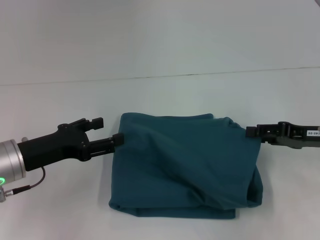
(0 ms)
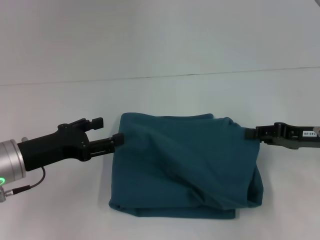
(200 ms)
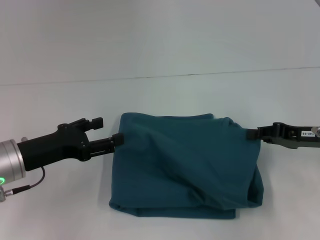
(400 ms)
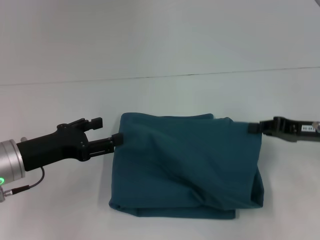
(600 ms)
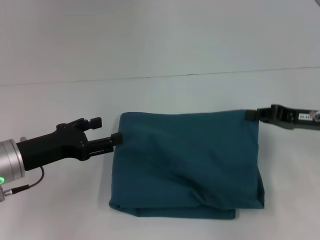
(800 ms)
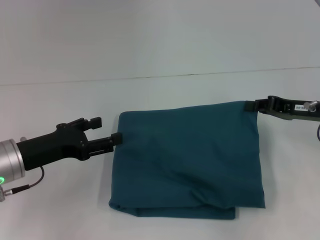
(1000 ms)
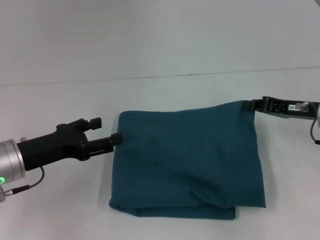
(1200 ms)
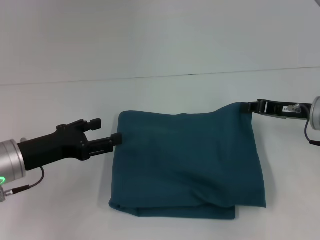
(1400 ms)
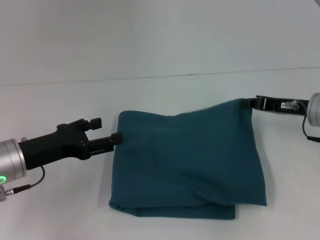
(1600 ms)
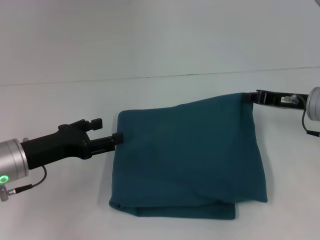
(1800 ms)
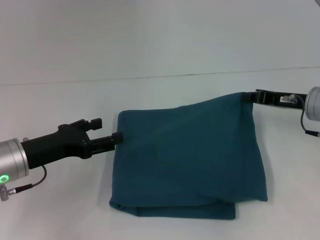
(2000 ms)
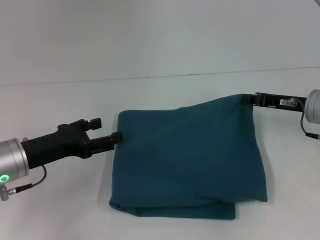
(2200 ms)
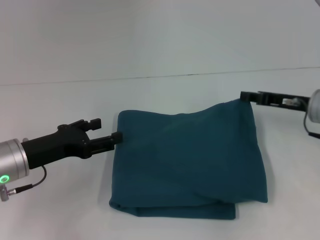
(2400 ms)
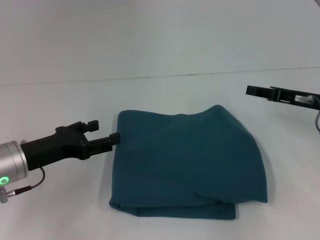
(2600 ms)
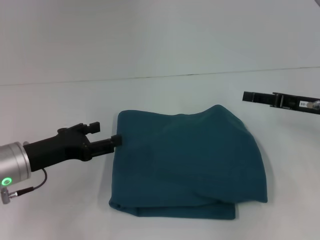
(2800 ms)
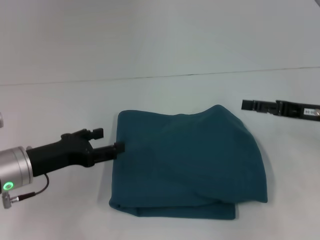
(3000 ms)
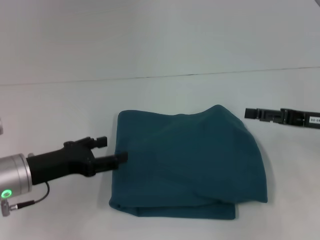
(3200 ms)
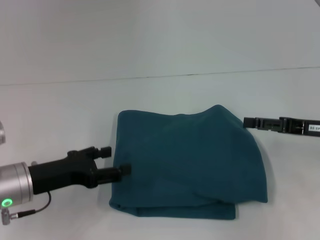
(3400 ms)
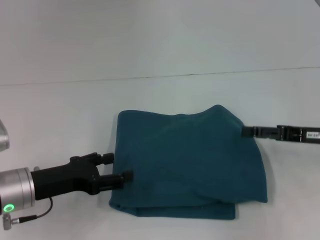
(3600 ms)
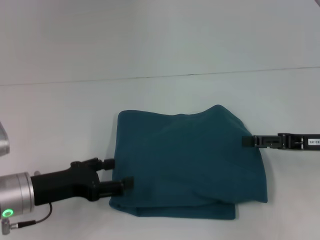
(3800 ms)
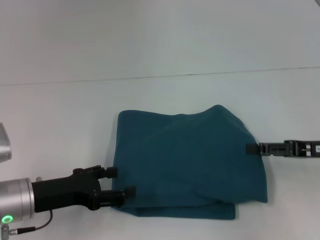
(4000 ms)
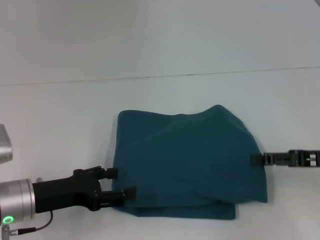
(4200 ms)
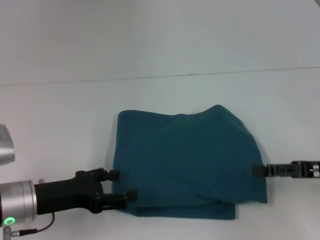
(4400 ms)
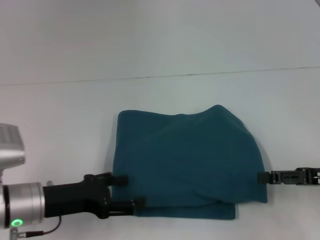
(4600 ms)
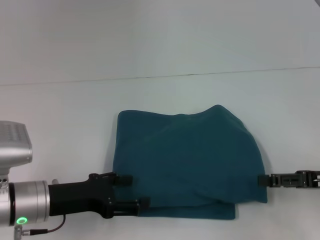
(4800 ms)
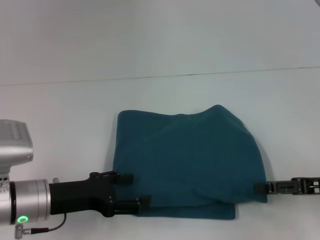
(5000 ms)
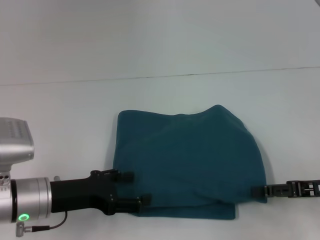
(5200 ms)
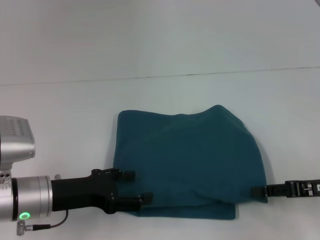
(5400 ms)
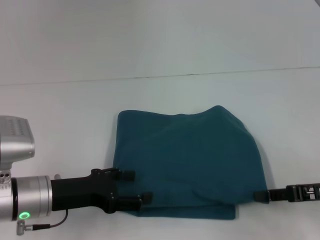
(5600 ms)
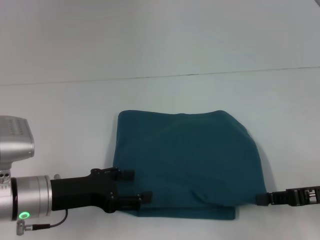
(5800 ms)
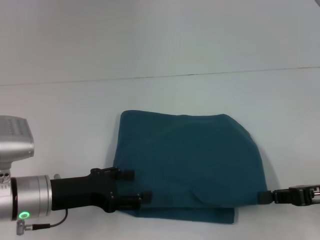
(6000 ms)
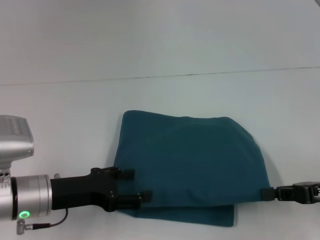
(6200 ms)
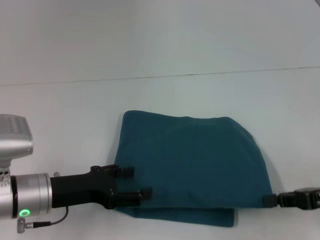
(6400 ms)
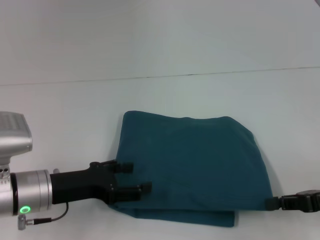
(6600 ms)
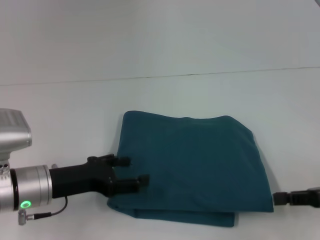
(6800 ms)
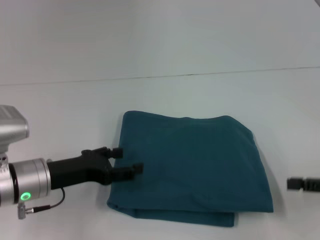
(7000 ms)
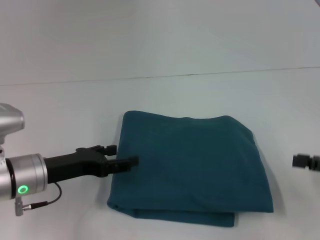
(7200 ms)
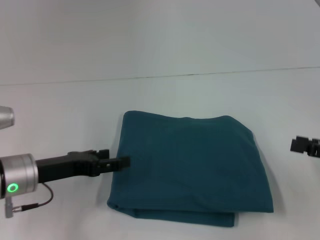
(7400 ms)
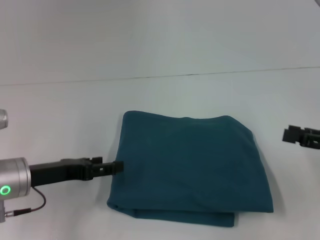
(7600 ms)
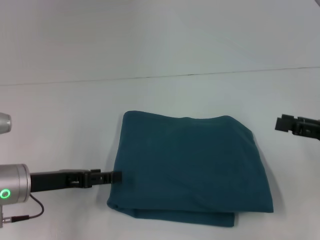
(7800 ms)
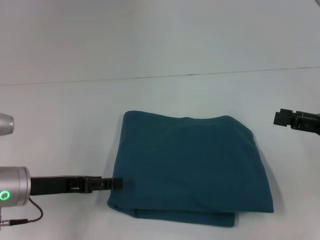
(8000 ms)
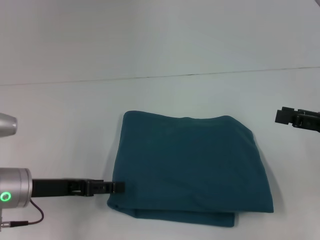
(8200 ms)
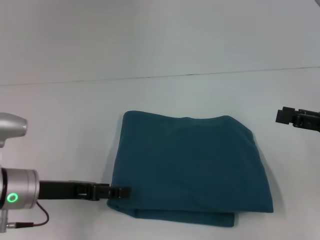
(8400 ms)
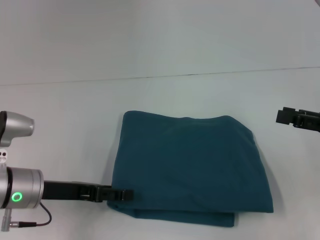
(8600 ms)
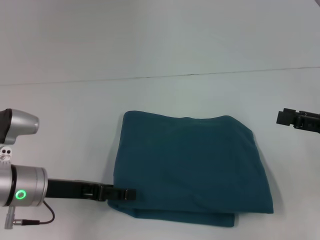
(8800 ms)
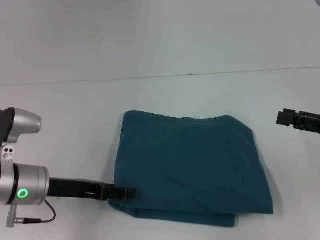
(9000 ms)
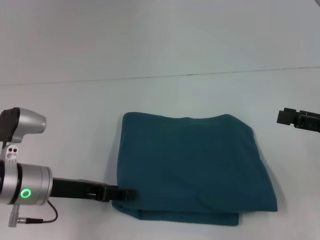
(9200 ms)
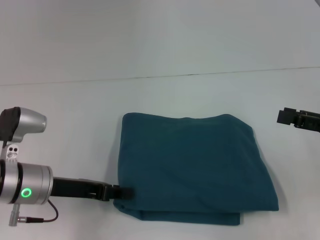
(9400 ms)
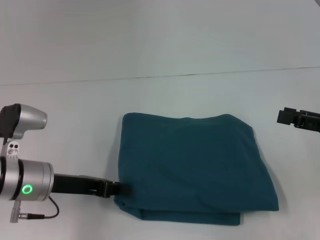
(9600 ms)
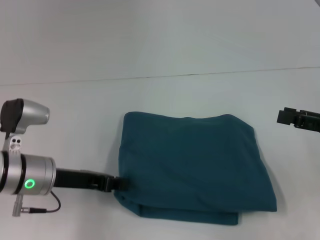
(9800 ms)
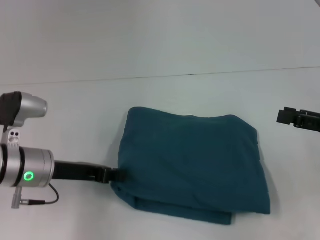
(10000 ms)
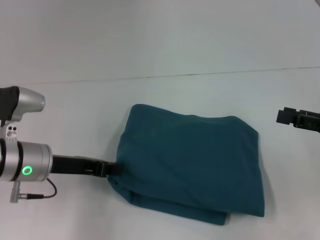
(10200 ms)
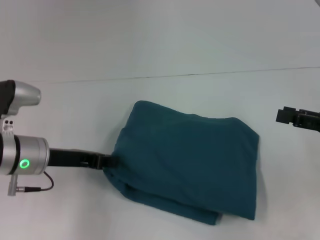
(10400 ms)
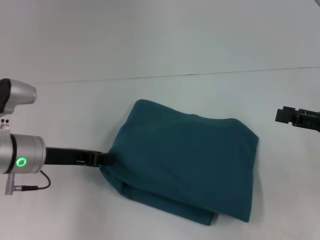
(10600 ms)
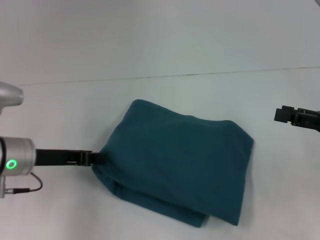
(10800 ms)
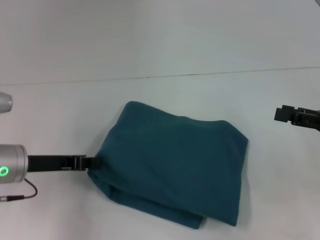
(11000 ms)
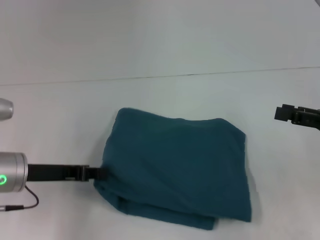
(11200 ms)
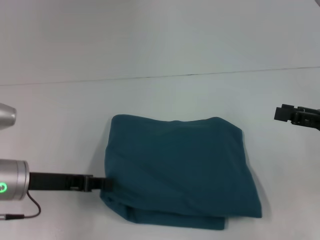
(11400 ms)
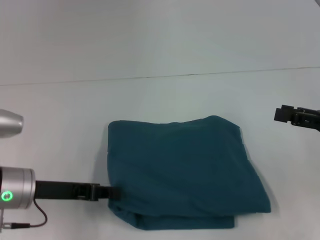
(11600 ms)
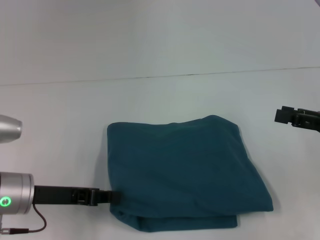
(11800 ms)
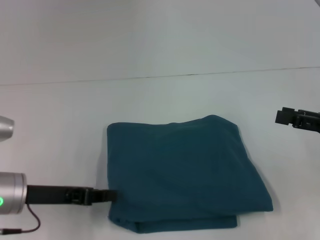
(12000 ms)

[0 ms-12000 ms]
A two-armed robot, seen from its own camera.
0 ms to 1600 ms: The right gripper goes approximately 5 cm forward, and closes up.
1600 ms to 3000 ms: The right gripper opens its fingers.
3000 ms to 4400 ms: The right gripper is displaced backward by some 5 cm.
4400 ms to 6000 ms: The right gripper closes up.
6000 ms to 7600 ms: The right gripper opens.
7600 ms to 9000 ms: The grippers move only a little.
9000 ms to 10400 ms: The left gripper closes up.
10400 ms to 12000 ms: The left gripper changes place by some 5 cm.

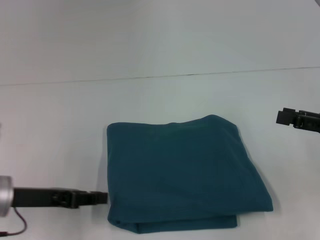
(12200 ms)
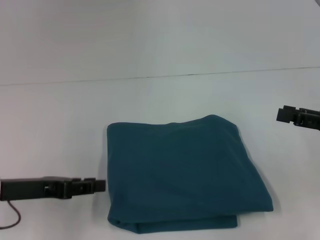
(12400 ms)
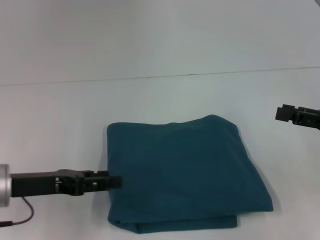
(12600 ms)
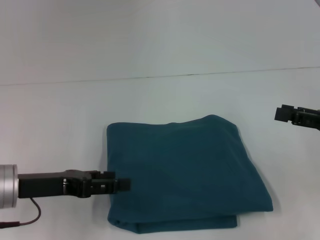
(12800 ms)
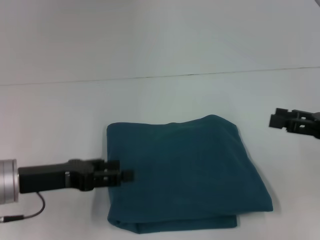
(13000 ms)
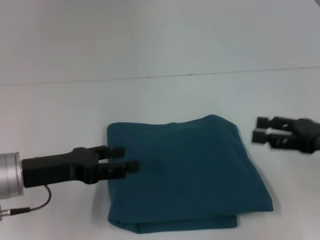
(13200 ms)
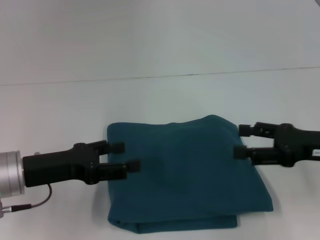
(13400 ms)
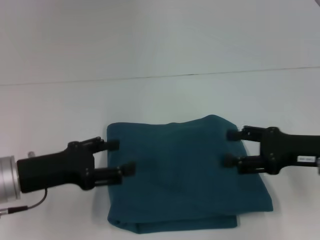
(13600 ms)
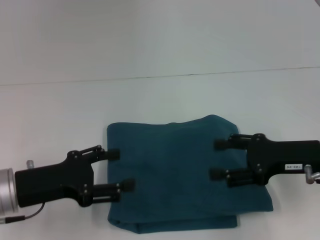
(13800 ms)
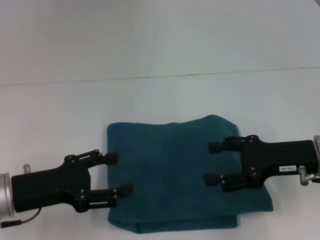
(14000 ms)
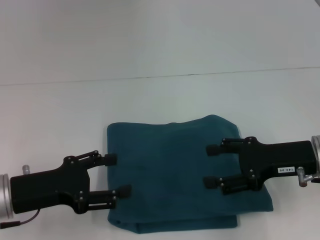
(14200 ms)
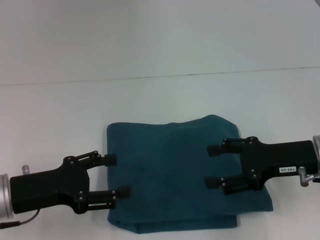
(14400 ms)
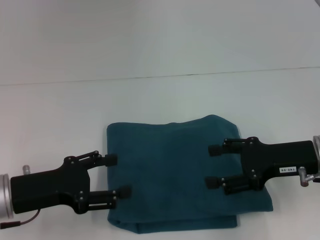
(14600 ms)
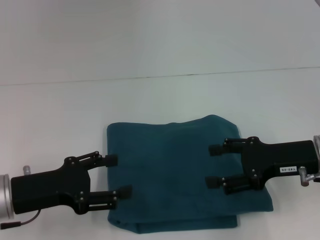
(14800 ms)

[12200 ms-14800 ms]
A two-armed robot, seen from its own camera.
12200 ms to 13400 ms: The left gripper opens up; the right gripper is displaced to the left by approximately 5 cm.
13400 ms to 14800 ms: The grippers make only small movements.

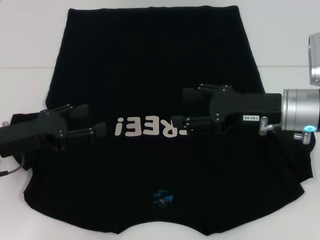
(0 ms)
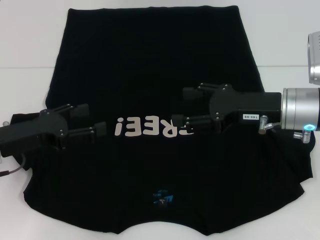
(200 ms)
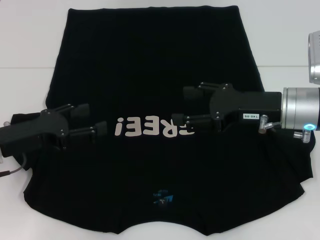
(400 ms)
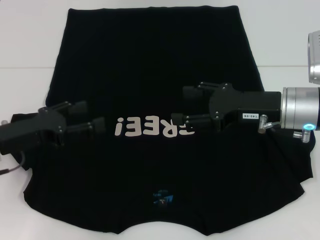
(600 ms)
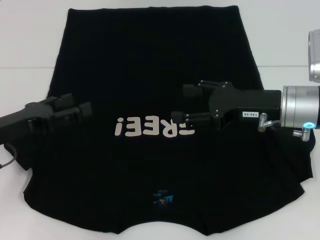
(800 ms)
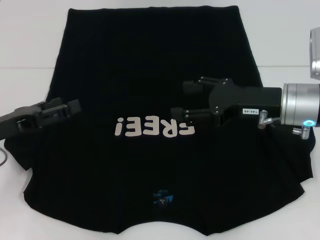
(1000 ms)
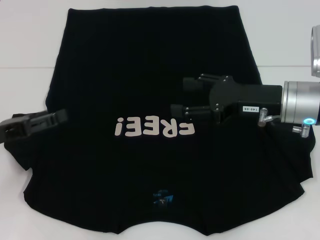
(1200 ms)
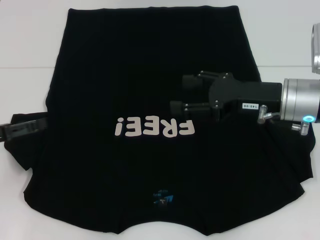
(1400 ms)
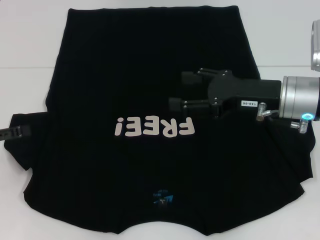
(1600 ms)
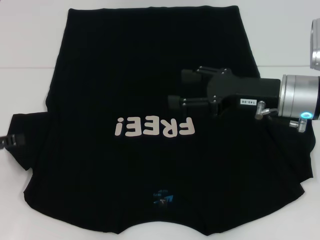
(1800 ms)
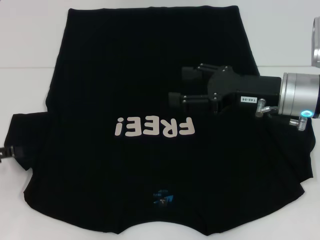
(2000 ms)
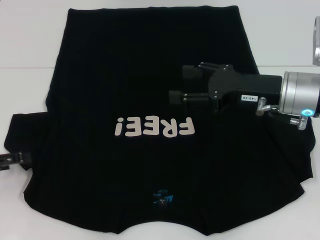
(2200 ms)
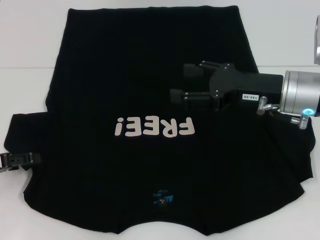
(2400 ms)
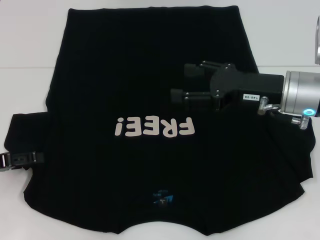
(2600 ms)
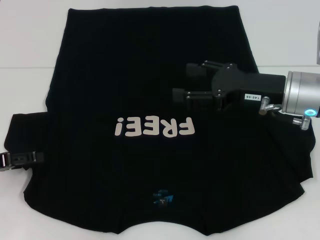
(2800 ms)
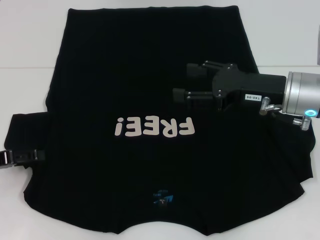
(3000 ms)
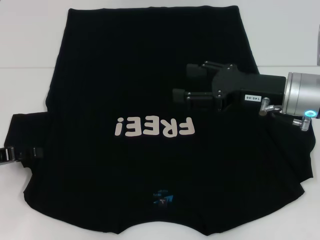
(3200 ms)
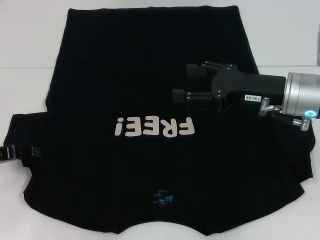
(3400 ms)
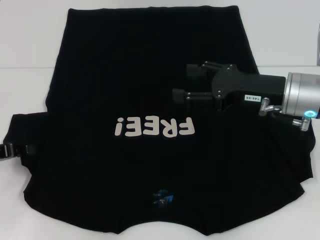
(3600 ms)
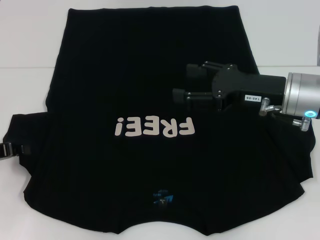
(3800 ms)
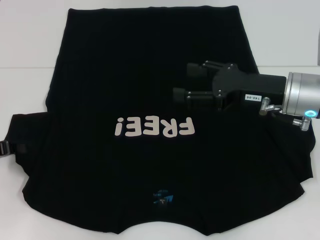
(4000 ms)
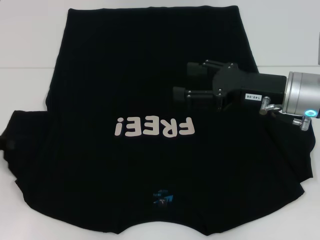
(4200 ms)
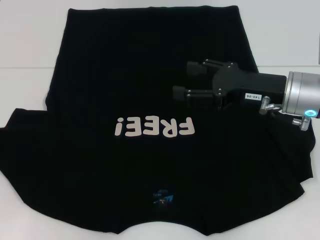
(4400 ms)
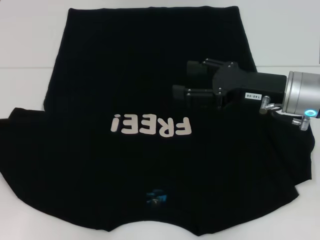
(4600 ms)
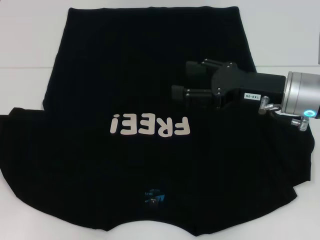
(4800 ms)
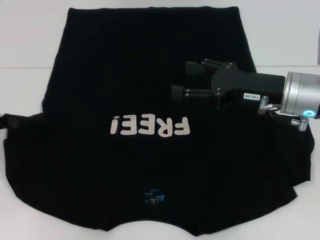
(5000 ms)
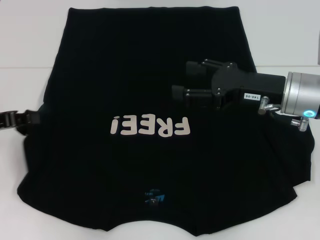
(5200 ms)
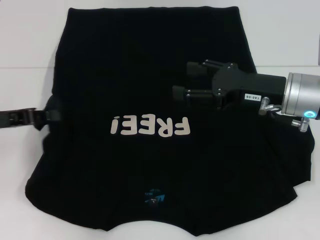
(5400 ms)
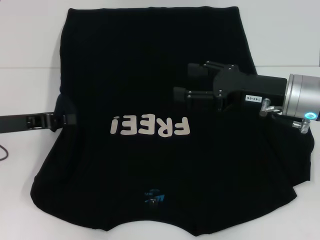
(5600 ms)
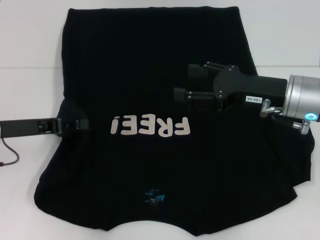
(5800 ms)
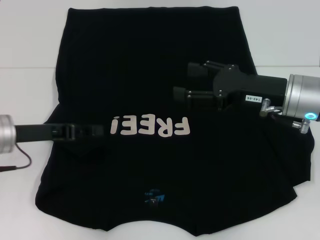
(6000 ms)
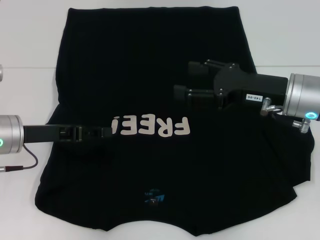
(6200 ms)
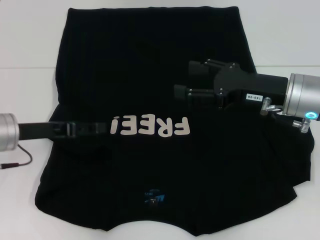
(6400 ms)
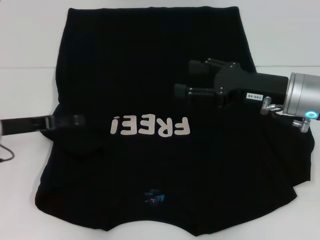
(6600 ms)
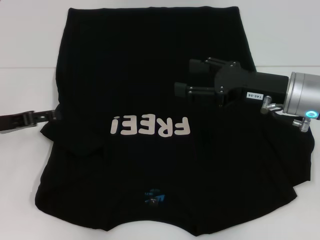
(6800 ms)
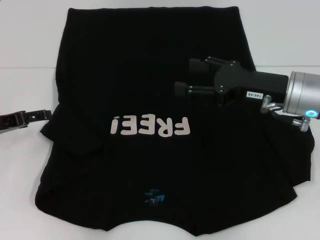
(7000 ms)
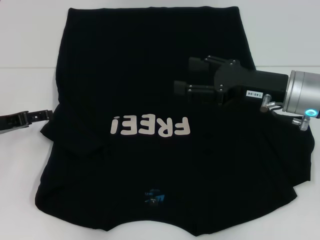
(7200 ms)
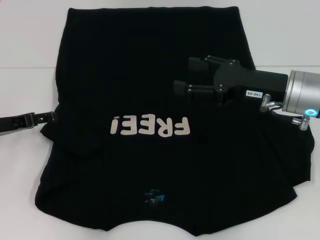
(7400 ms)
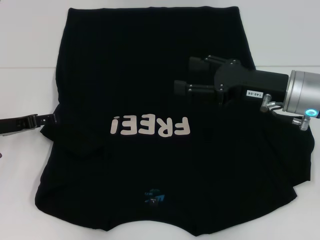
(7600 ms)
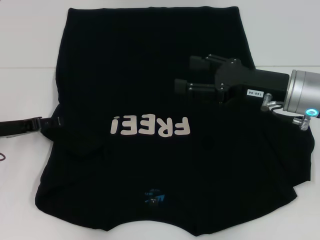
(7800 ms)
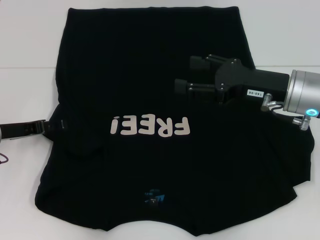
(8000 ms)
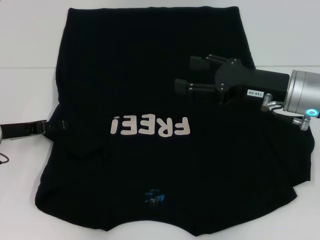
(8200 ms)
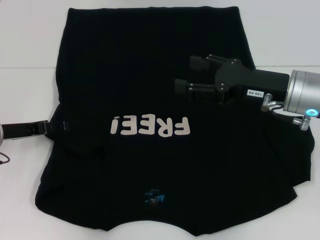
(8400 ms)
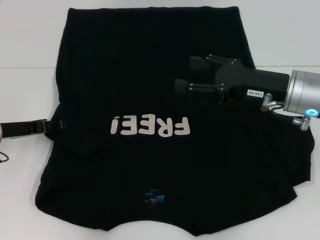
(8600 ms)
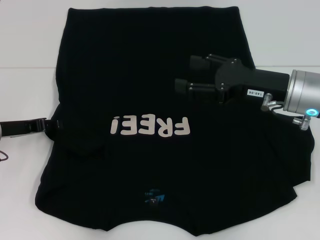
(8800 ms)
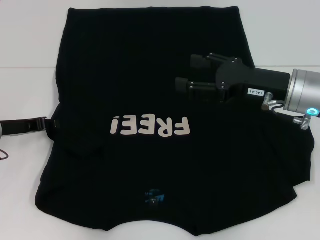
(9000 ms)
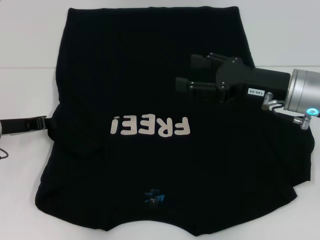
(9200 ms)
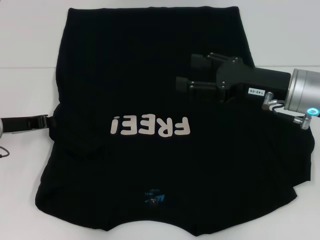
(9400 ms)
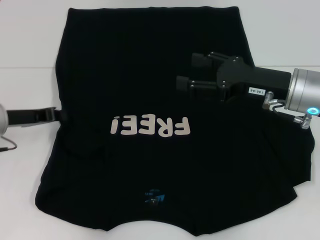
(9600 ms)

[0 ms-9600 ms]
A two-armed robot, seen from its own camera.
0 ms to 1600 ms: The left gripper heads to the left, covering about 10 cm.
1600 ms to 3200 ms: The grippers move only a little.
3200 ms to 4800 ms: The left gripper ends up some 5 cm from where it was, and closes its fingers.
4800 ms to 6400 ms: The left gripper shifts some 10 cm to the right, and opens.
6400 ms to 8000 ms: The left gripper shifts by some 5 cm, and opens its fingers.
8000 ms to 9600 ms: The left gripper closes up.
